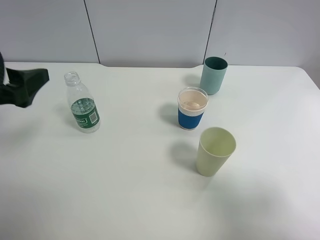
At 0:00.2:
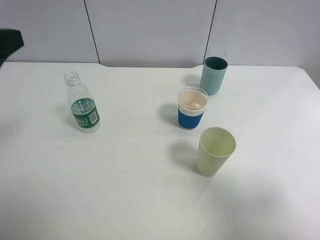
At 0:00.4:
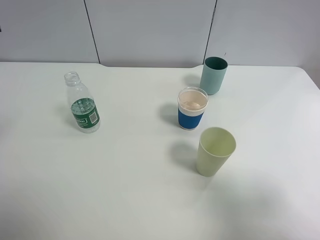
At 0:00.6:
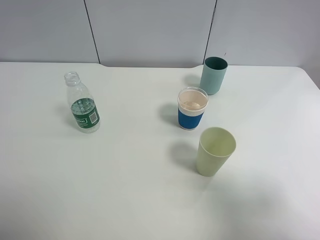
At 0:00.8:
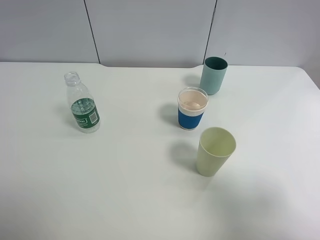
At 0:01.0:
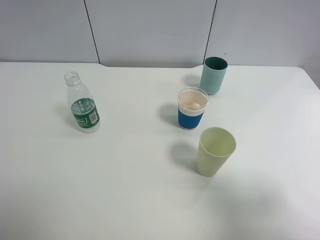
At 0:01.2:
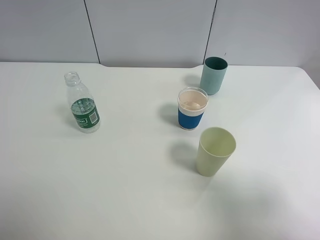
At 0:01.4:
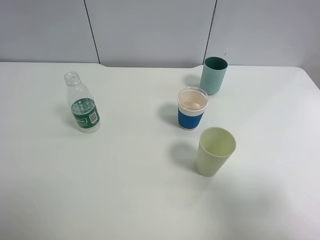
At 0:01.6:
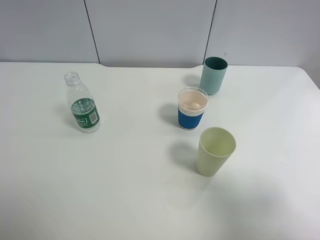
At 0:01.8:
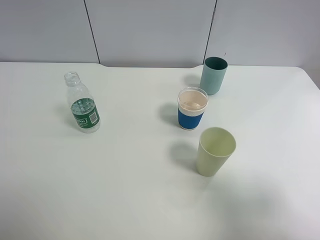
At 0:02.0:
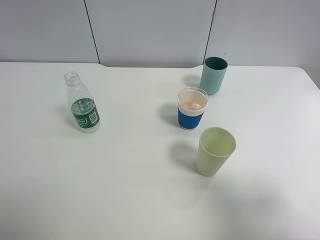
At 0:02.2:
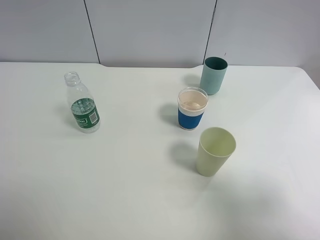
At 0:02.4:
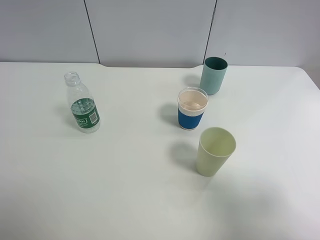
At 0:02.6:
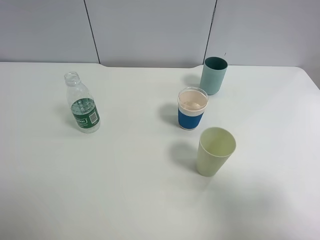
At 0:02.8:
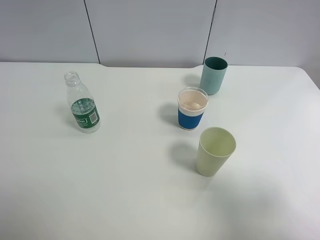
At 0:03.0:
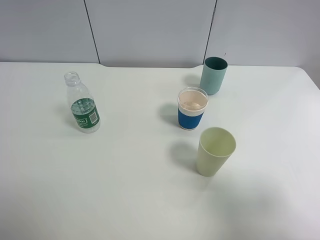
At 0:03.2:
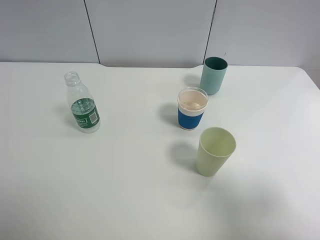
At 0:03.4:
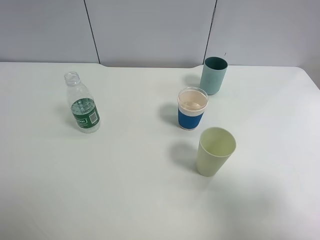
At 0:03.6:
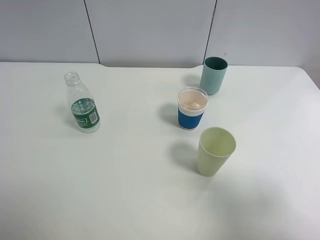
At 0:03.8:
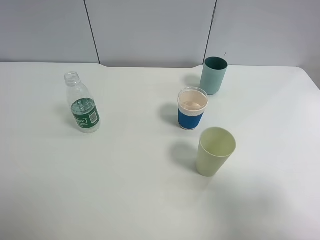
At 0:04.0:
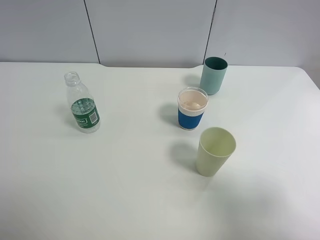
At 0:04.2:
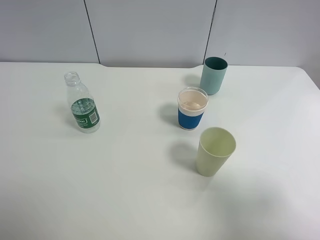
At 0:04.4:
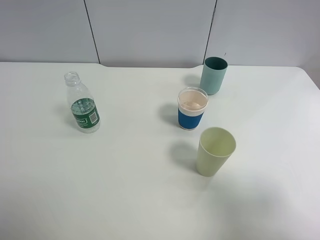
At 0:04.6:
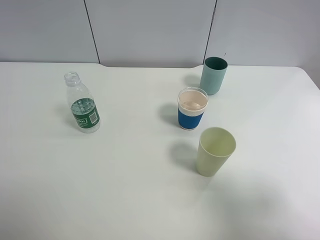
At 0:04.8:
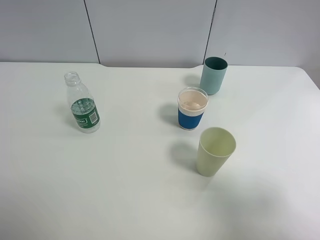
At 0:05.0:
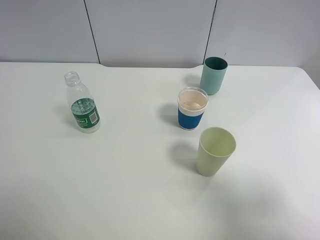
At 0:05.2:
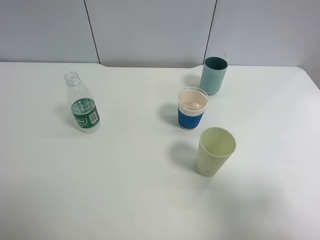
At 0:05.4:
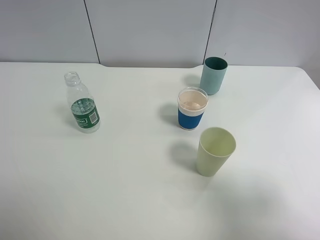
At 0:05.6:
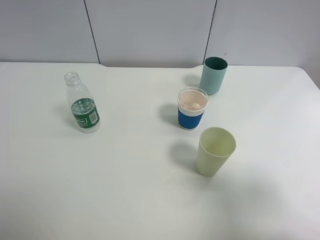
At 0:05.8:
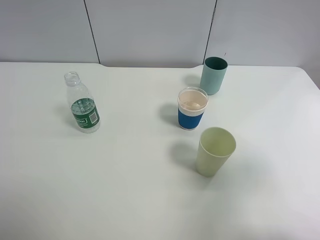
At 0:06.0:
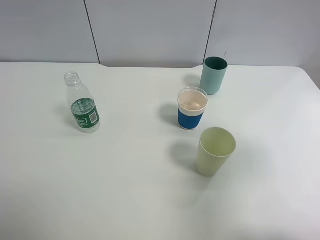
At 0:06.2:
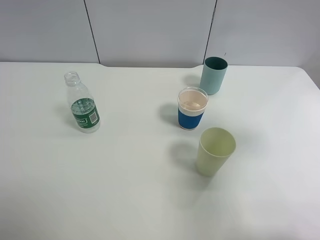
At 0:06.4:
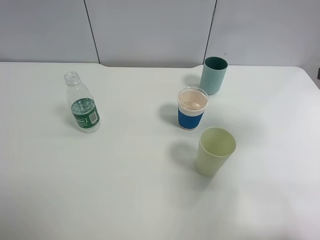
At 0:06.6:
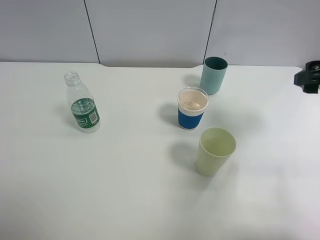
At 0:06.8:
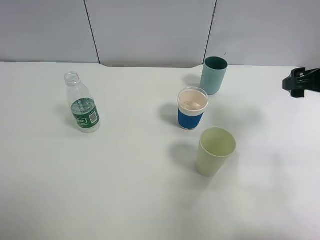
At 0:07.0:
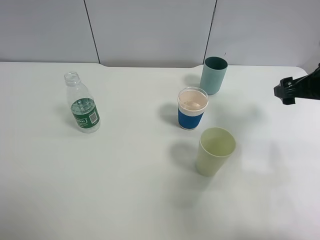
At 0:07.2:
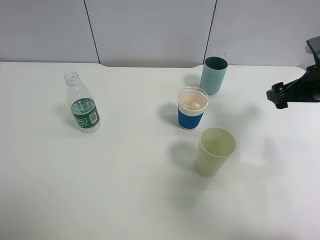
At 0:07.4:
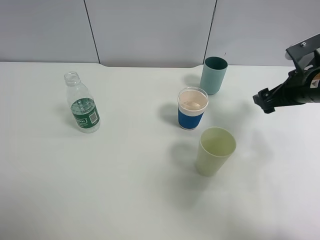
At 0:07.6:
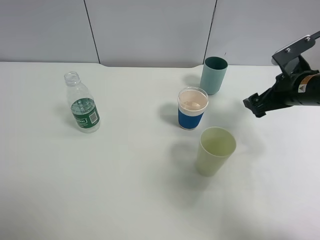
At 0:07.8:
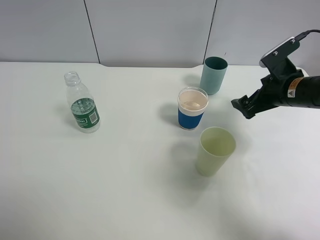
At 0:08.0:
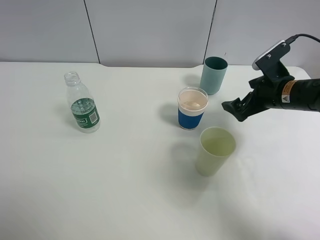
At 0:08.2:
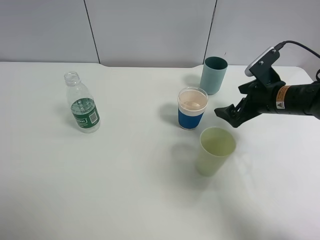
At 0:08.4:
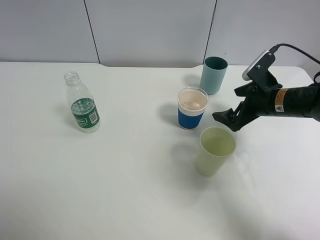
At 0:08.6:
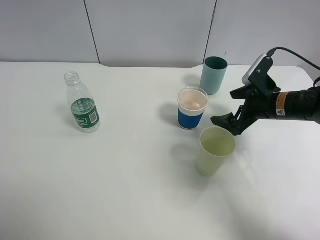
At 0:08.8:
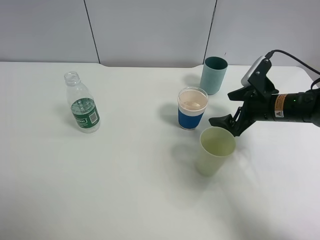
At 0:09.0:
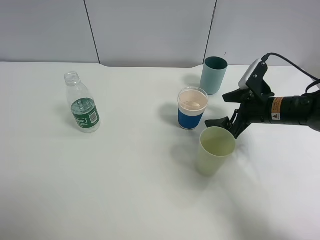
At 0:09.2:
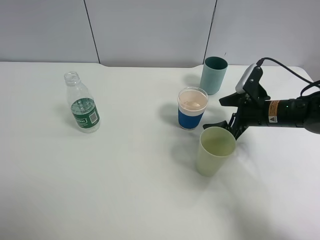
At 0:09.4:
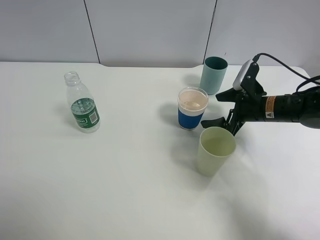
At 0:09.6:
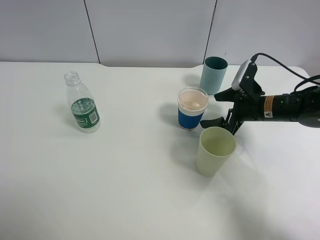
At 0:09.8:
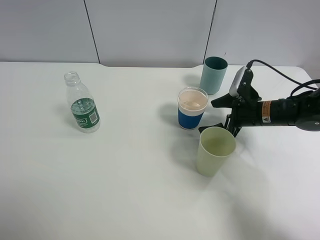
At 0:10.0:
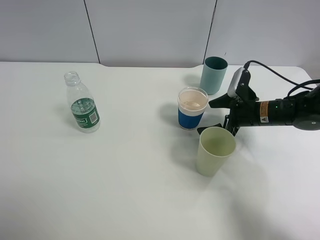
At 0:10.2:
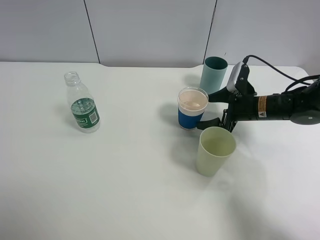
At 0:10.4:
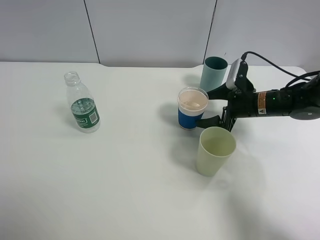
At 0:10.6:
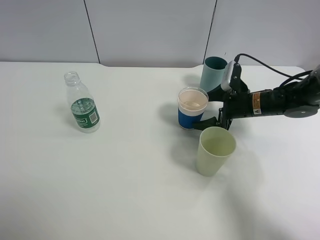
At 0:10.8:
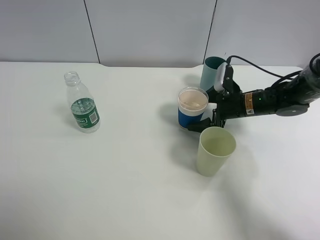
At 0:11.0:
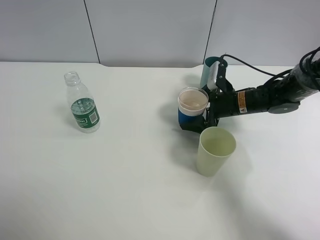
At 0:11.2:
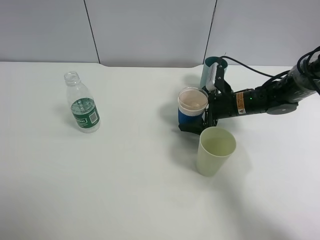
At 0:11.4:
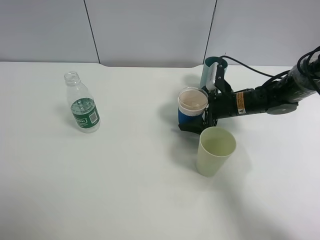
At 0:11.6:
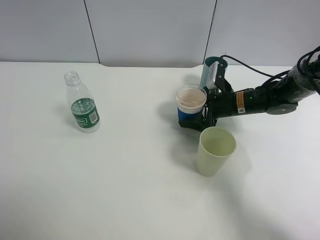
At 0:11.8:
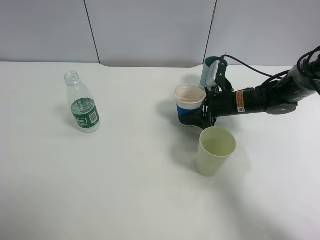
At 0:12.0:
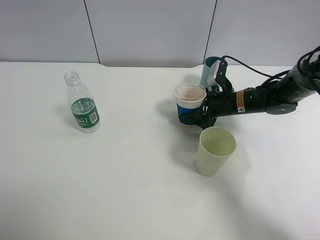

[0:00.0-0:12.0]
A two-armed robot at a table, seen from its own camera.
Task of the whole recording: use a clamp to hold the bottle of the drink, pour the beverage into a random cup, then clamp the cup containing the drink and pour the drink into another random cup.
0:00.0 to 0:01.6: The left gripper shifts approximately 15 cm backward.
0:03.0 to 0:04.4: Neither gripper changes place.
0:04.4 to 0:06.0: The right gripper goes about 10 cm forward.
0:06.0 to 0:07.6: The right gripper is displaced forward and downward by roughly 25 cm.
0:07.6 to 0:09.0: The right gripper heads downward, covering approximately 5 cm.
0:09.0 to 0:10.4: The grippers move only a little.
0:10.4 to 0:12.0: The right gripper closes.

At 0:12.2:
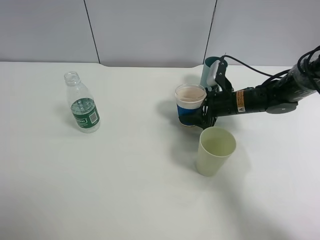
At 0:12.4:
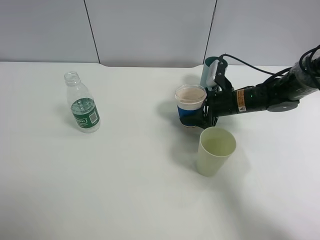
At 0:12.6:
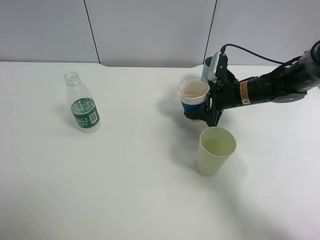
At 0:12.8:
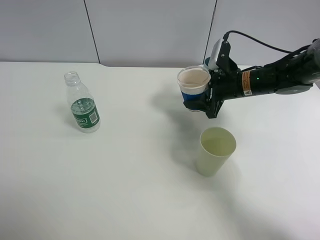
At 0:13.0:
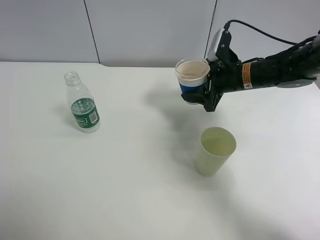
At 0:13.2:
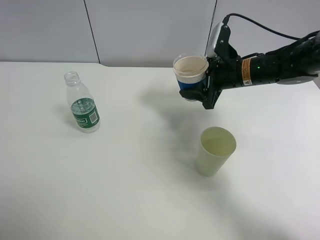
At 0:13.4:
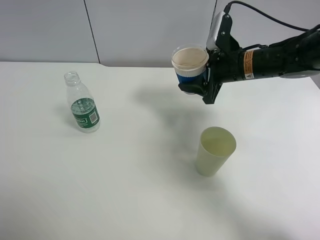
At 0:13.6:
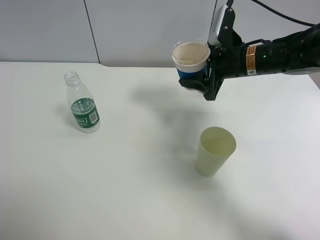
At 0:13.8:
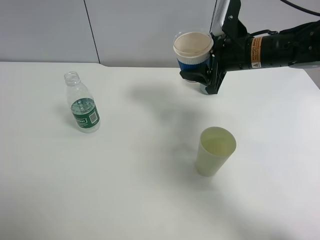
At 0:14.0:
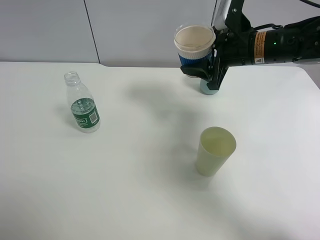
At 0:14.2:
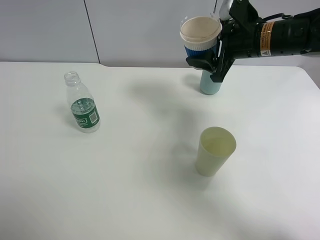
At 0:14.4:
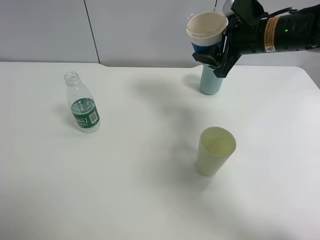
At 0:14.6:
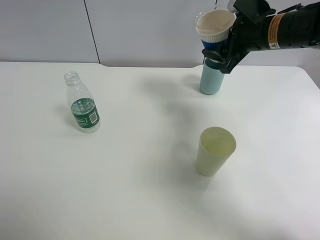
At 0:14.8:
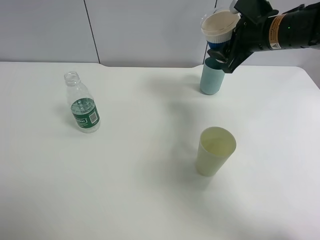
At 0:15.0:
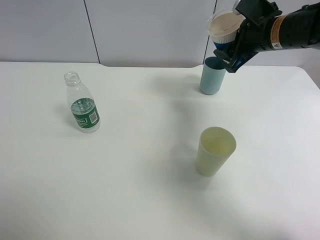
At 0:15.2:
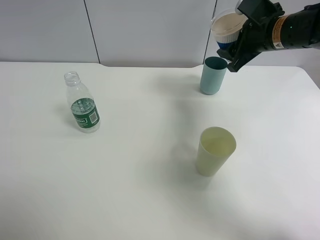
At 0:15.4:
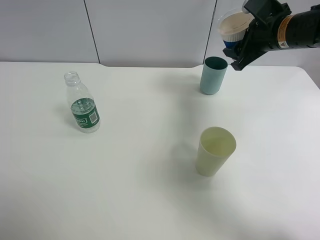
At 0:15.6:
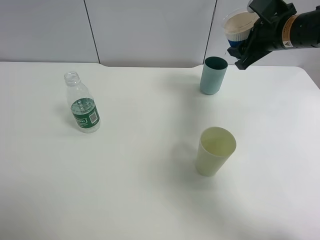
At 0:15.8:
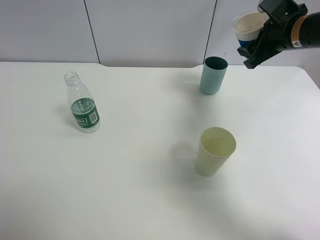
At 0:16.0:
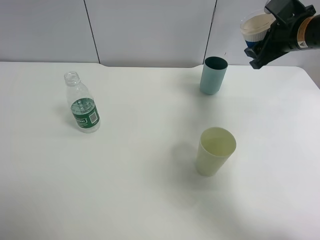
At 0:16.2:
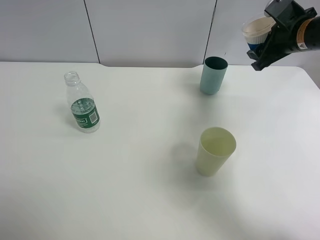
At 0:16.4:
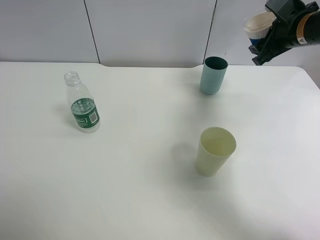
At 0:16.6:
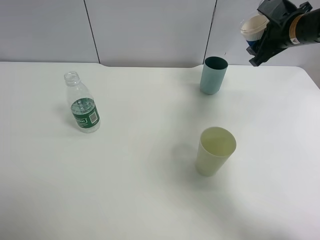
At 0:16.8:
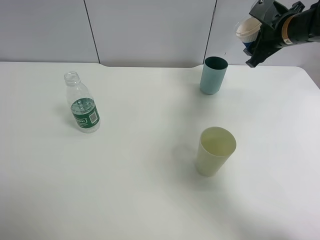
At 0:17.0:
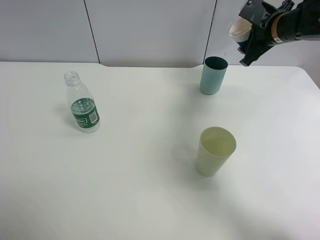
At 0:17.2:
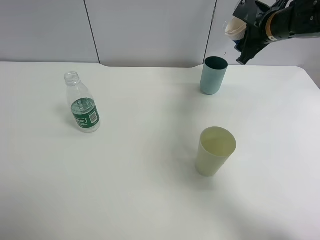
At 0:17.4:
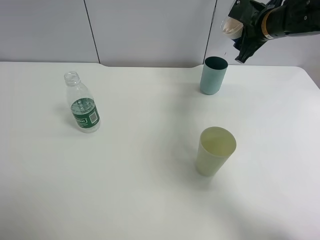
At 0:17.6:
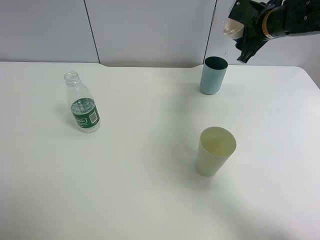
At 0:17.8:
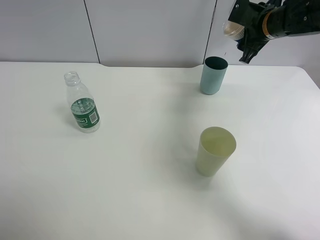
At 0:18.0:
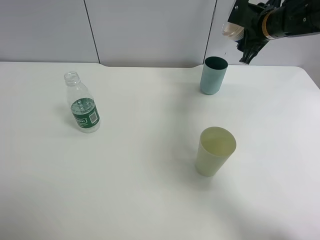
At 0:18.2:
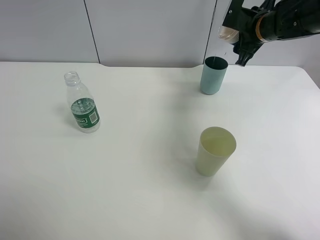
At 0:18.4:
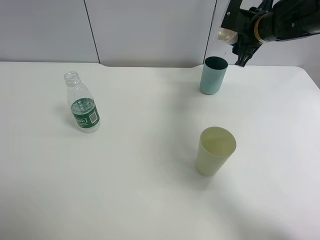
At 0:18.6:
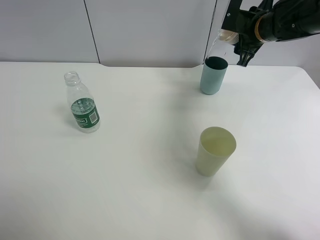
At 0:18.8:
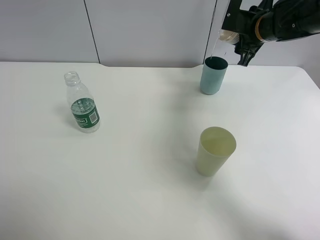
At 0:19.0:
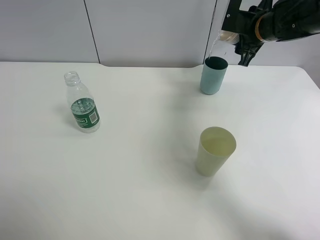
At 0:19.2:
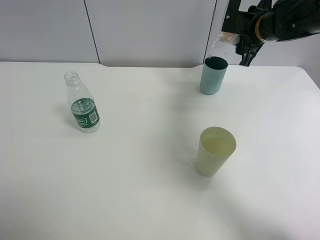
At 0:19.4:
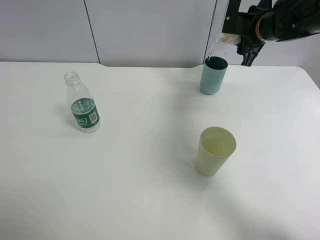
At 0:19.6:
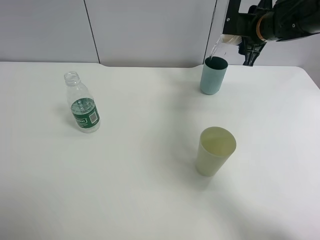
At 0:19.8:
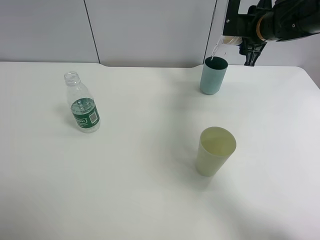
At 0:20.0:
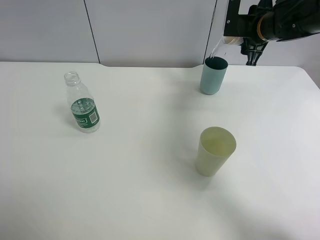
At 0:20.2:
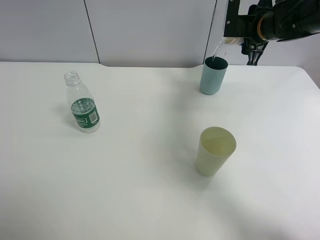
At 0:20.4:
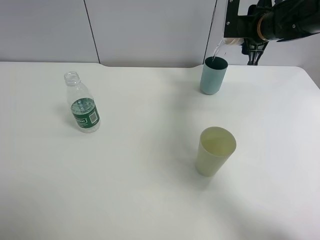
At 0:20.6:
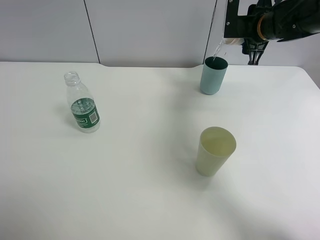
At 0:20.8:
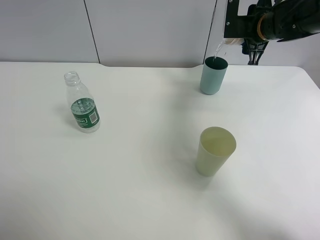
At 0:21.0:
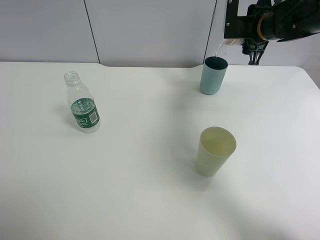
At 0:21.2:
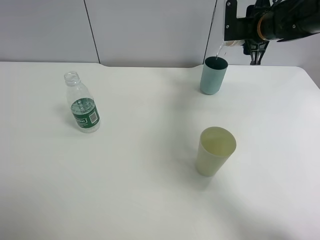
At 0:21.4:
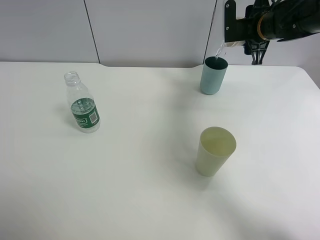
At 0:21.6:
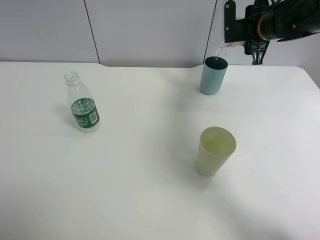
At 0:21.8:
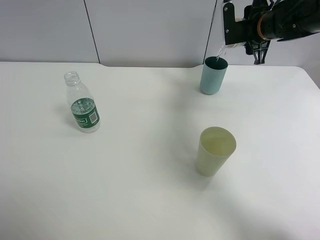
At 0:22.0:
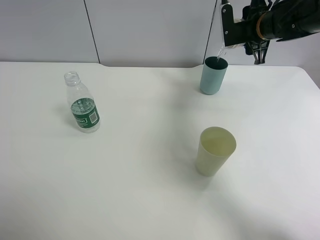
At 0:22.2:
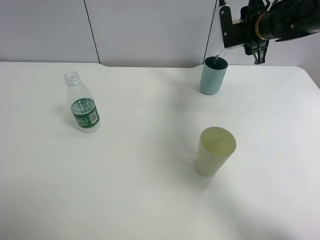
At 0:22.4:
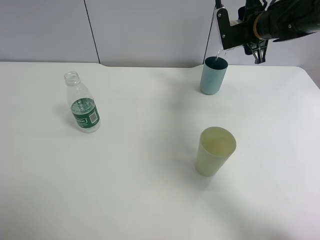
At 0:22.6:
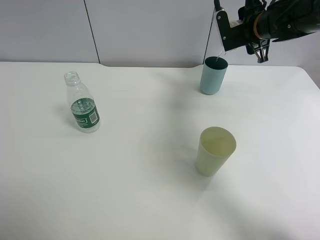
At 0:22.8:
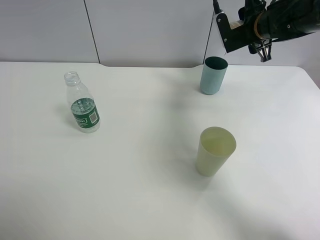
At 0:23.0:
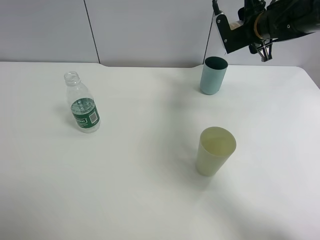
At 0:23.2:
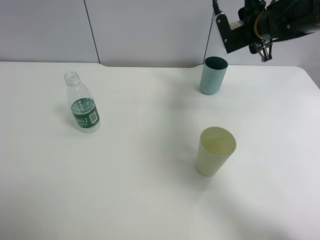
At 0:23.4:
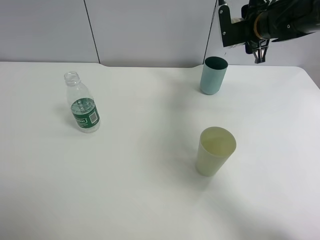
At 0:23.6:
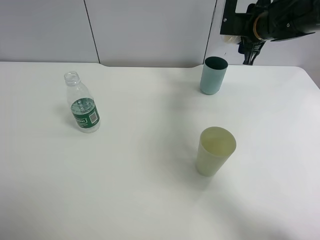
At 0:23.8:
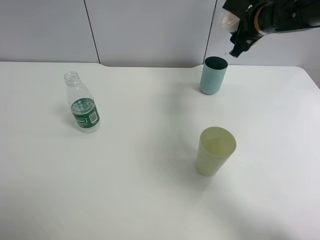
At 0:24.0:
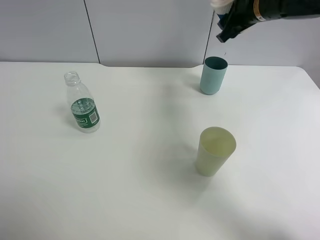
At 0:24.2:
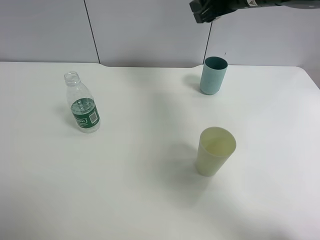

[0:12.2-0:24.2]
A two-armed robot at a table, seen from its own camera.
Task of the whole recording: use a clamp to hold the bottle of the drink, pour the beverage into a random cup, then clamp the cup containing the drink and pour the drink into another random cup.
Step, 0:13.8 to 0:23.8: Pour water into the blue plastic cup with right gripper.
0:12.2 to 0:13.8: The right gripper heads upward, covering some 15 cm.
0:13.8 to 0:15.2: The right gripper ends up approximately 5 cm from where it was.
0:15.2 to 0:16.6: The right gripper is displaced to the right by roughly 5 cm.
0:16.6 to 0:18.2: The right gripper ends up roughly 5 cm from where it was.
0:18.2 to 0:19.8: The grippers stay close to where they were, moving slightly.
0:19.8 to 0:21.2: The grippers make only small movements.
0:21.2 to 0:22.6: There are only small adjustments of the grippers.
0:22.6 to 0:24.2: The right gripper shifts some 10 cm upward and to the left.
